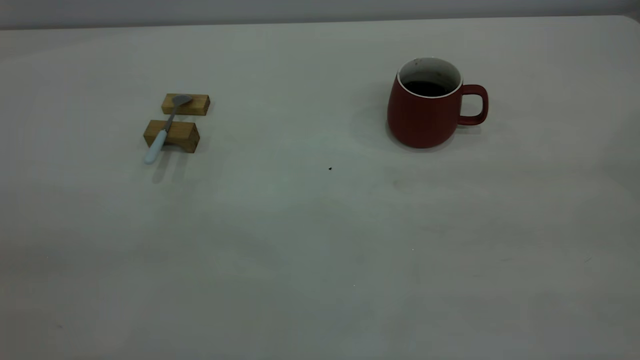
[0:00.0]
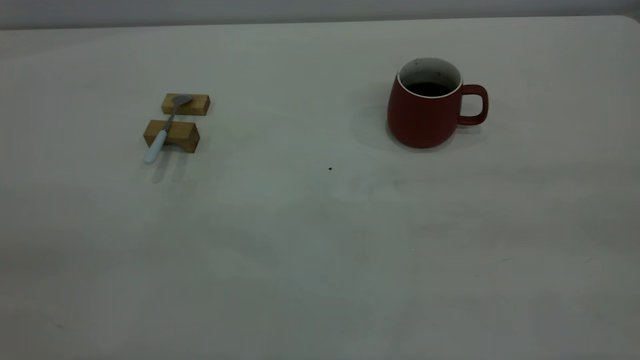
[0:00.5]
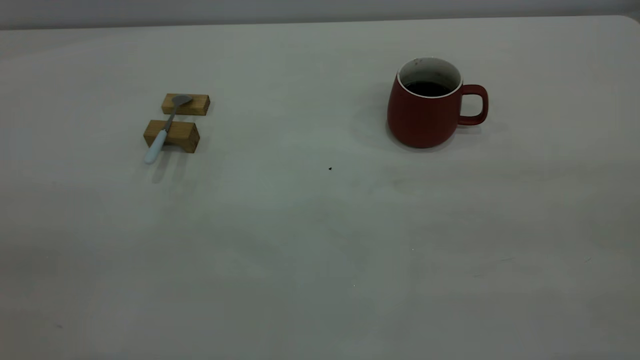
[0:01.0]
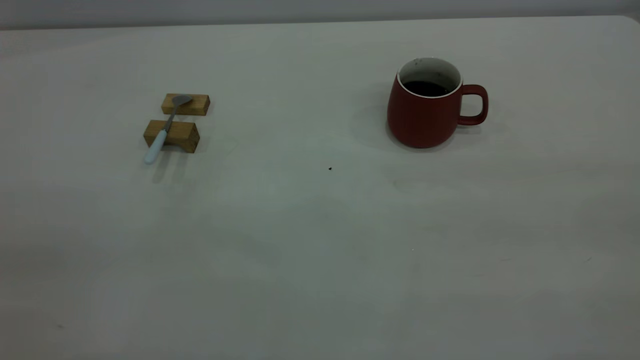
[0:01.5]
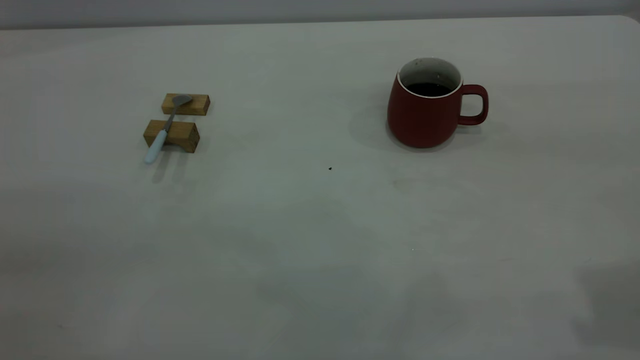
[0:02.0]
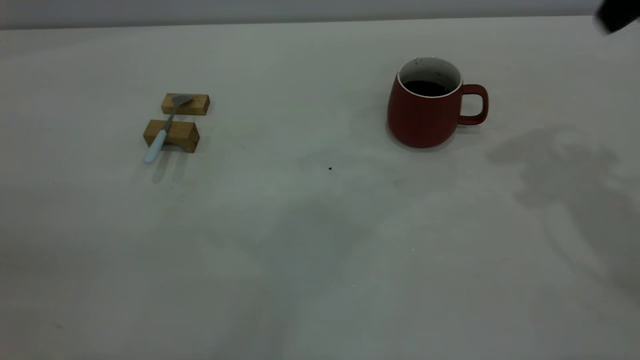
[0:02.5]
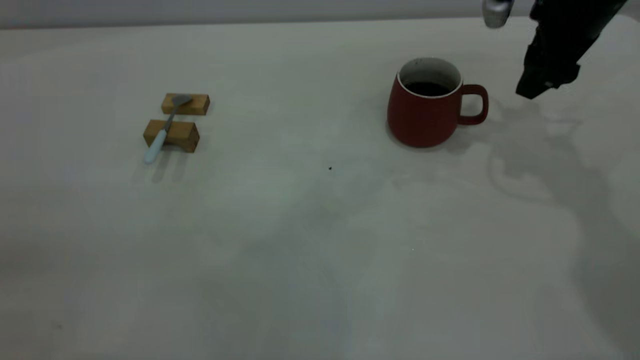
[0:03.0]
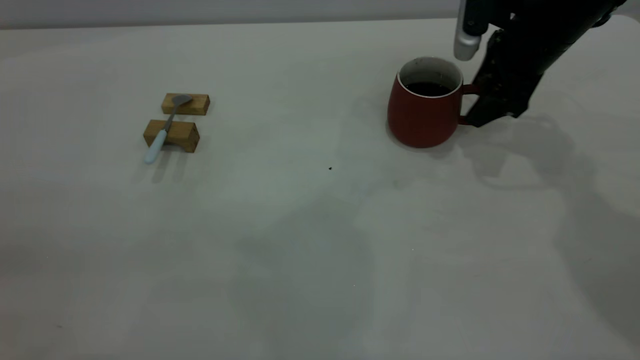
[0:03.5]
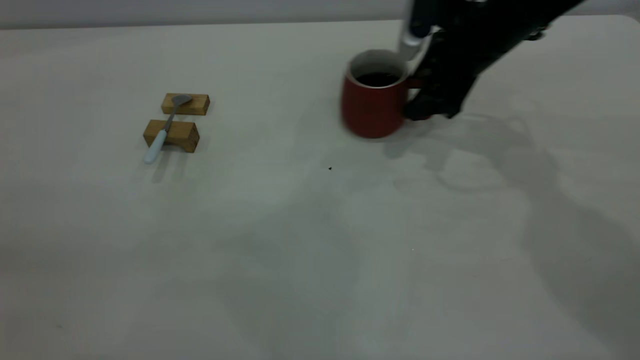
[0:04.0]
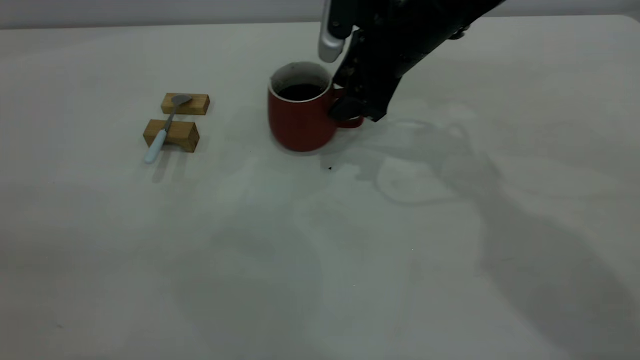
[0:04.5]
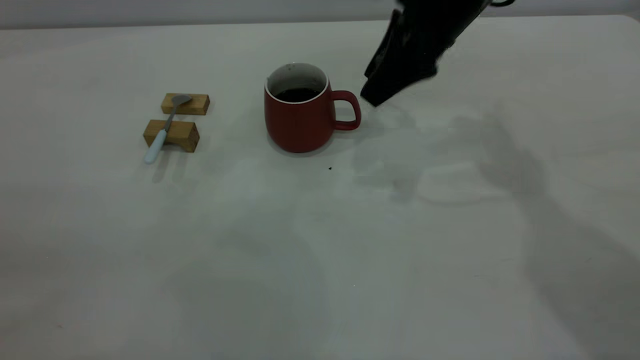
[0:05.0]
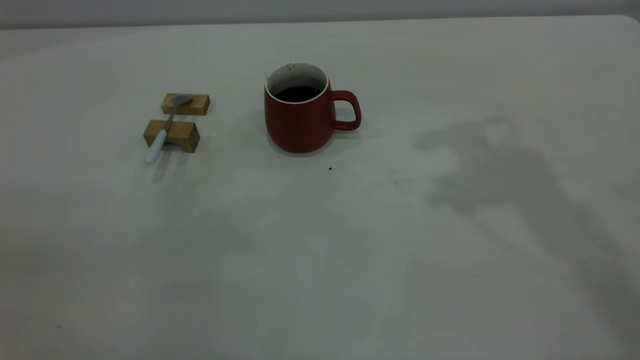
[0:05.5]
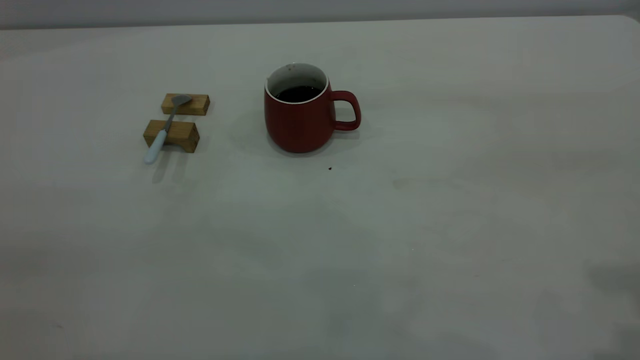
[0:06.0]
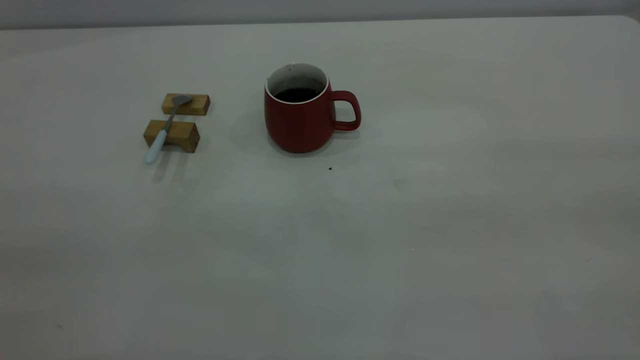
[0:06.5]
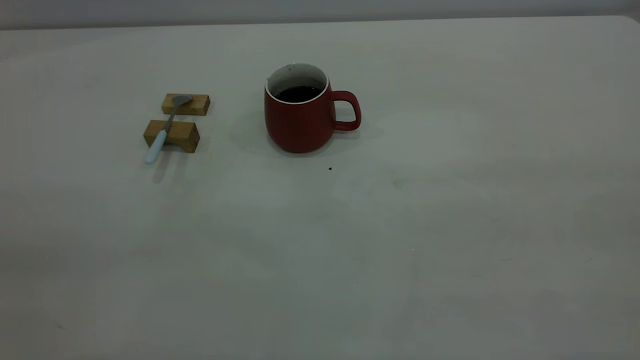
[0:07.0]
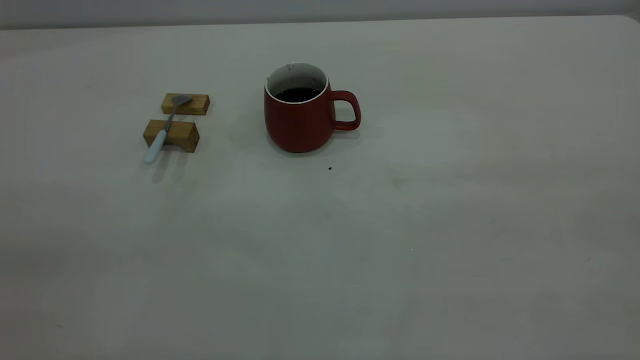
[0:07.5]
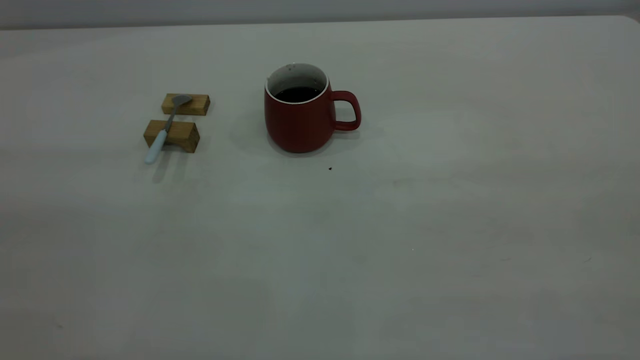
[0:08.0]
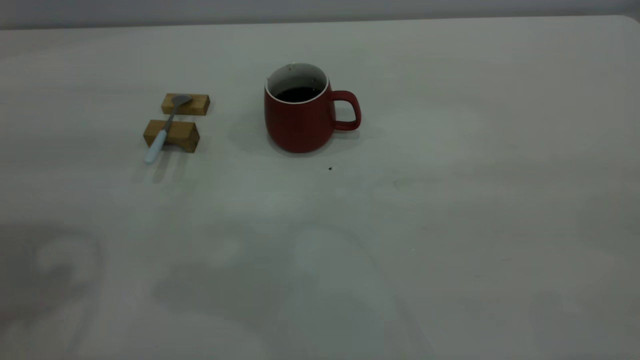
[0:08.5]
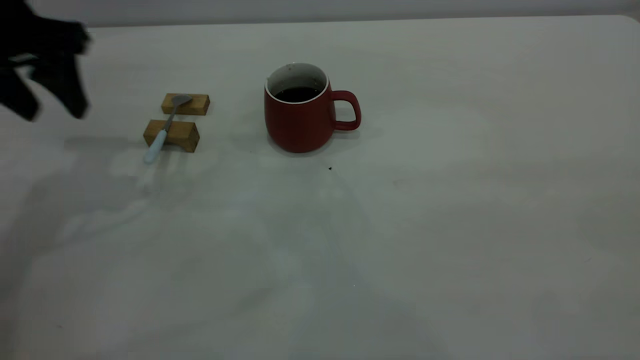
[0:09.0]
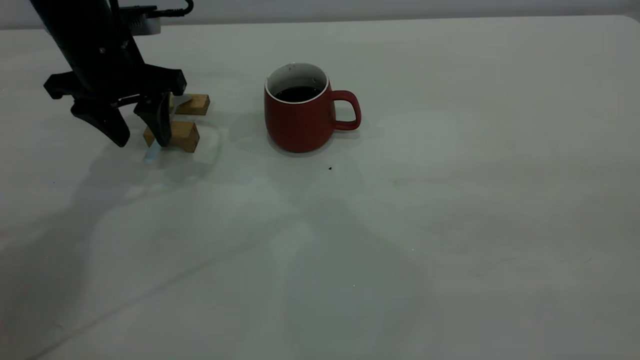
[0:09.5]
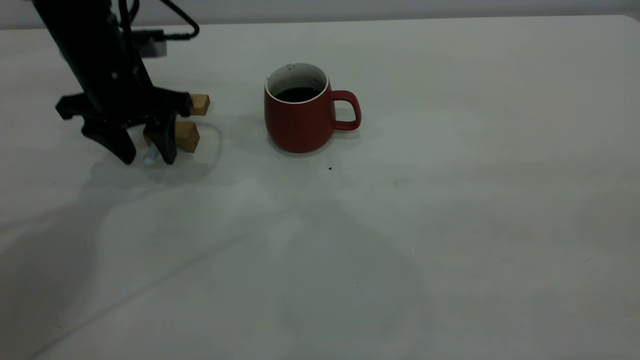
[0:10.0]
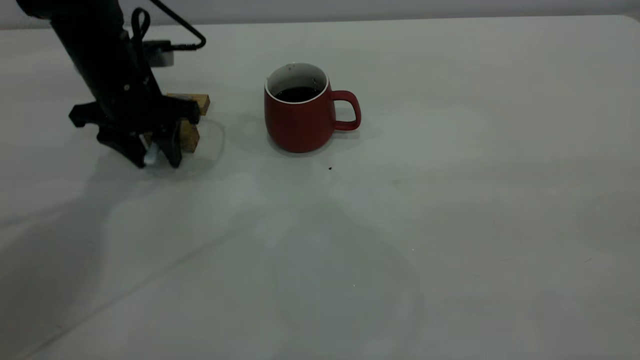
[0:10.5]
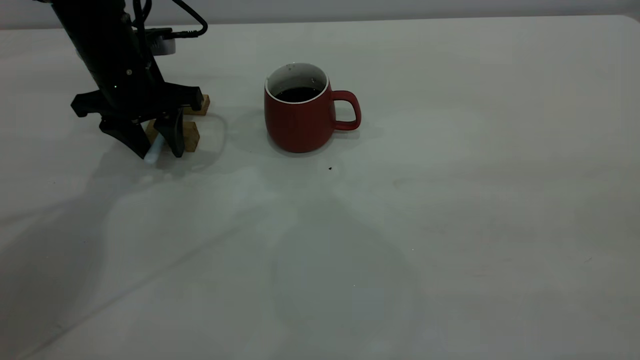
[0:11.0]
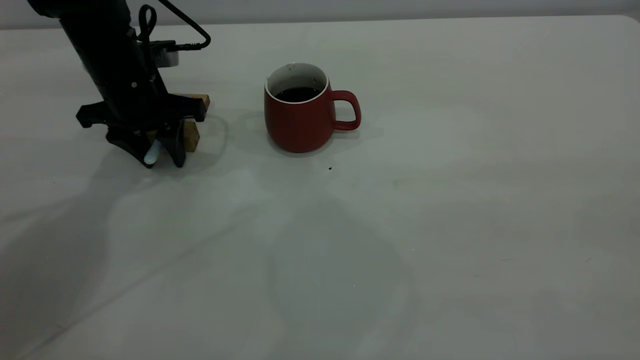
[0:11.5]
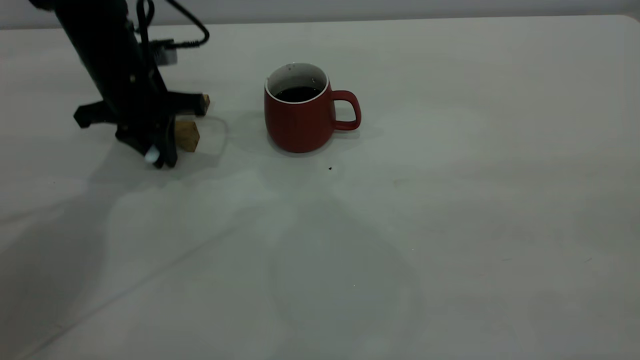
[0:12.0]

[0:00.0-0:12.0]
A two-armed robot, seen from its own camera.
Step, 0:00.0 to 0:05.0: Move the cup with coffee to the center of view.
0:02.0 to 0:04.0: The right gripper is displaced forward, downward and to the left by roughly 40 cm.
0:04.0 to 0:06.0: The right gripper travels backward, upward and to the right by some 40 cm.
0:08.0 to 0:10.0: The left gripper shifts roughly 40 cm forward and downward.
0:10.0 to 0:12.0: The left gripper closes its fingers.

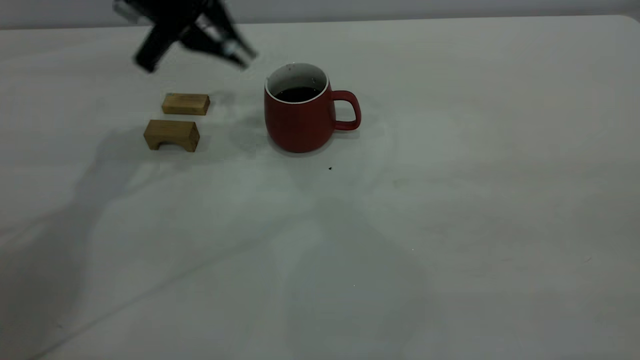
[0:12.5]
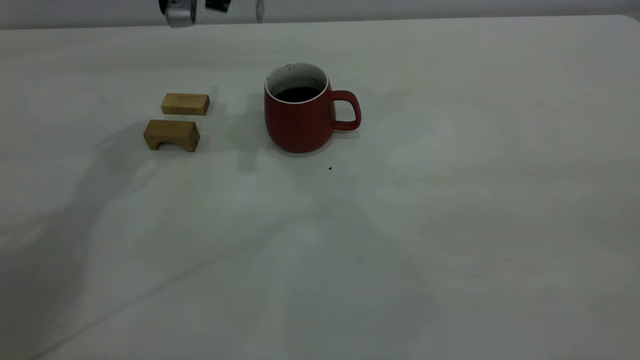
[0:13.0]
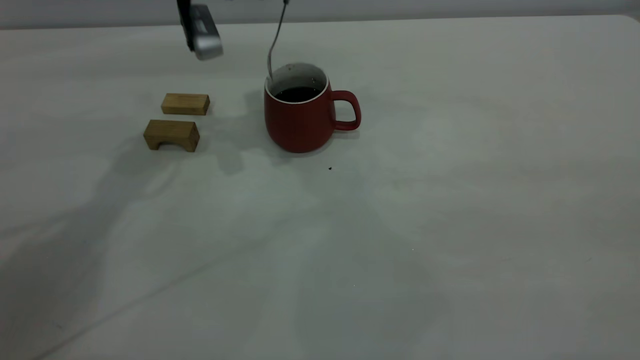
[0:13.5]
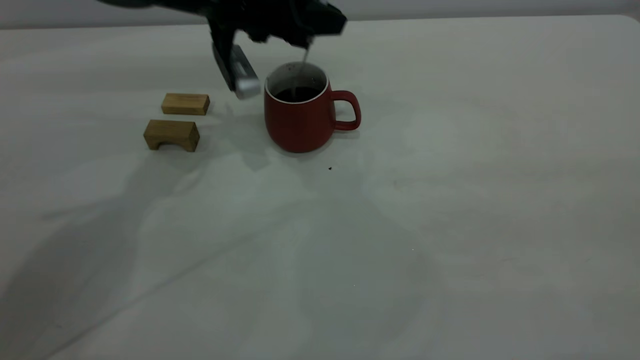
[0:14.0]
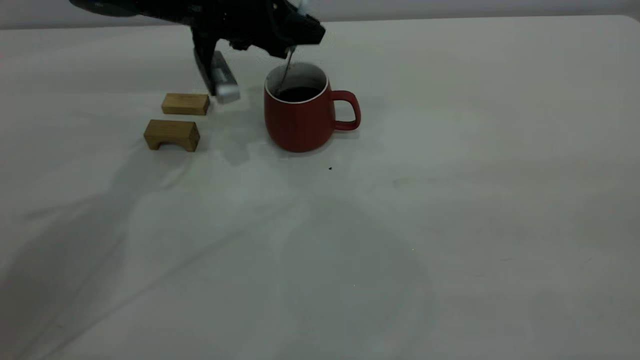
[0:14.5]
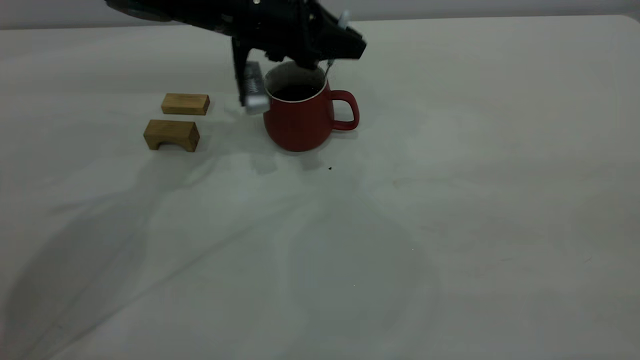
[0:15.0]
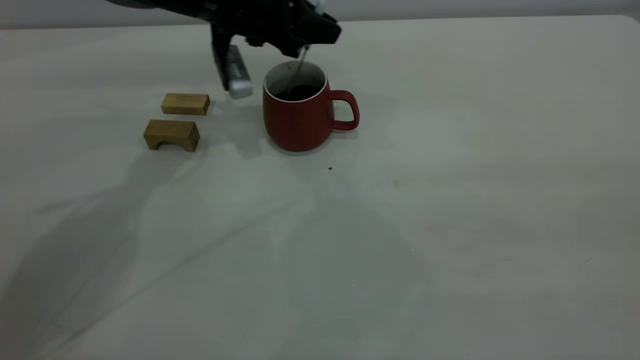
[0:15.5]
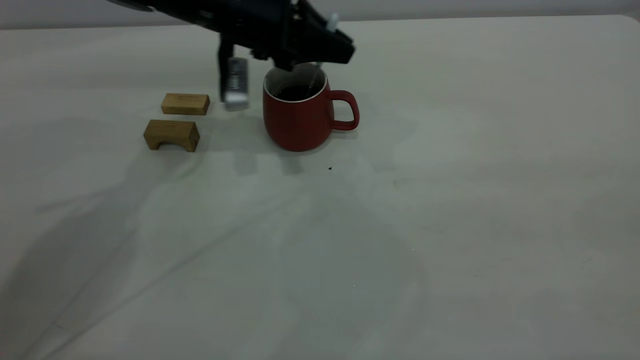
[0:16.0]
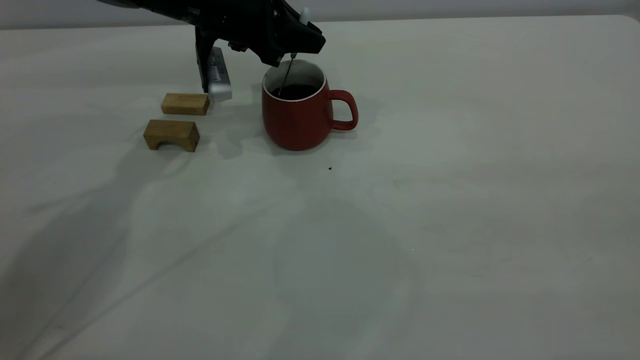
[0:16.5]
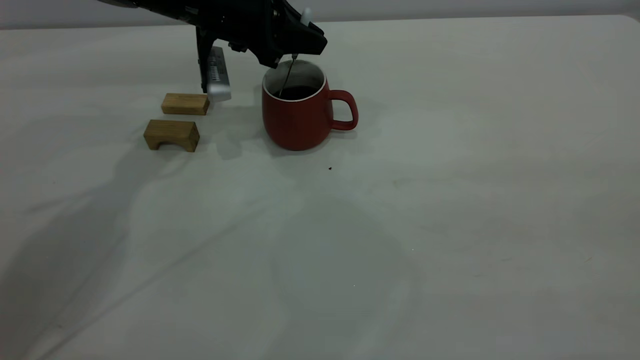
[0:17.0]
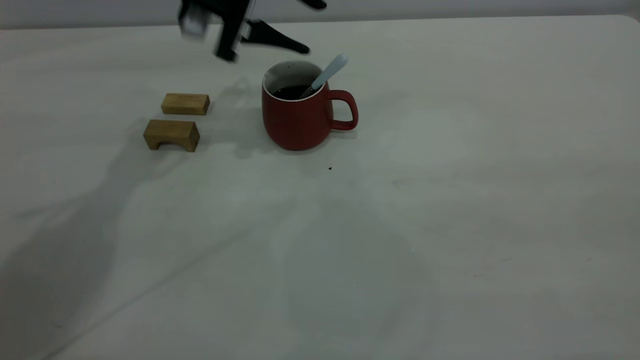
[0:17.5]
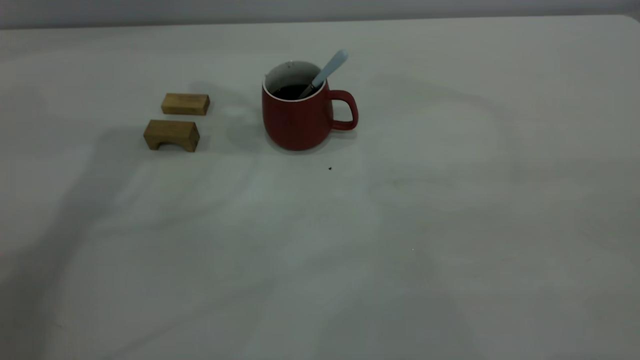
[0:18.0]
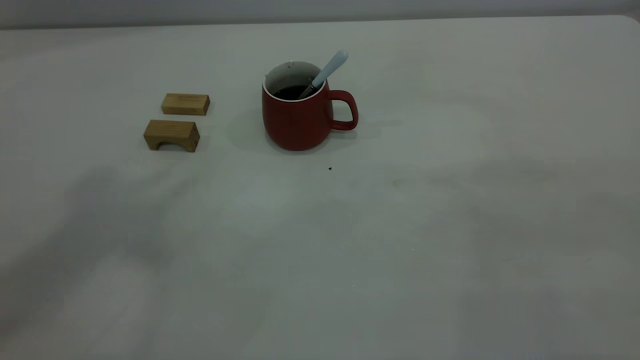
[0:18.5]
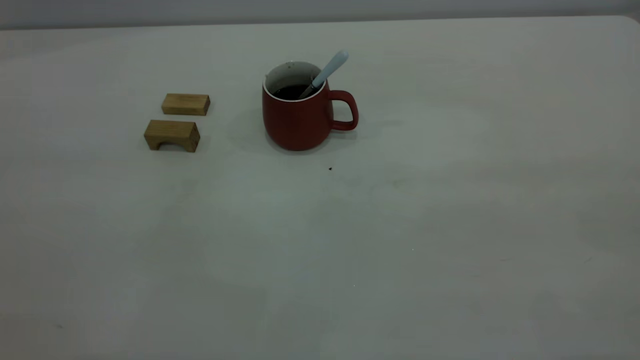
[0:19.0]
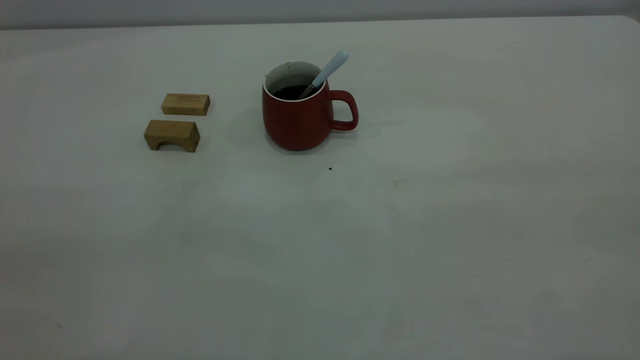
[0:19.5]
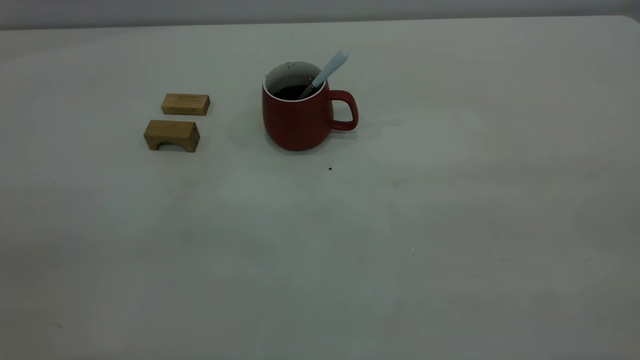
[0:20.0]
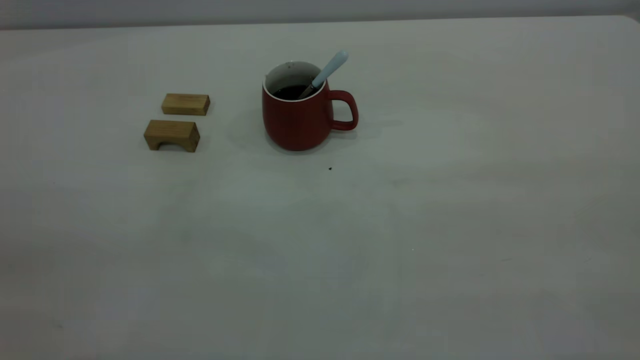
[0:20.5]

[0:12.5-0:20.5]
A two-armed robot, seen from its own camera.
Step, 0:12.5 to 0:17.0: Stir the coffee in the cup.
0:12.5 to 0:14.5: The left gripper travels downward by approximately 5 cm.
0:14.5 to 0:16.5: The grippers move only a little.
0:16.5 to 0:18.5: The left gripper heads upward and backward, covering some 50 cm, and opens.
